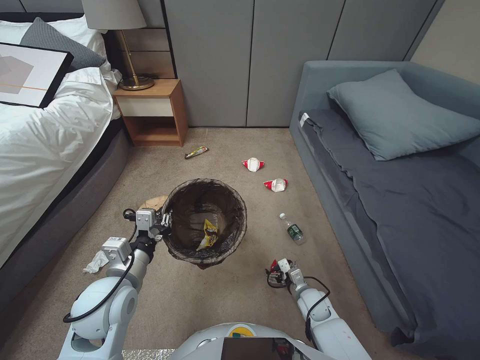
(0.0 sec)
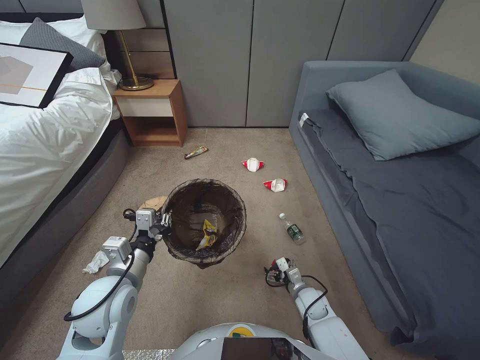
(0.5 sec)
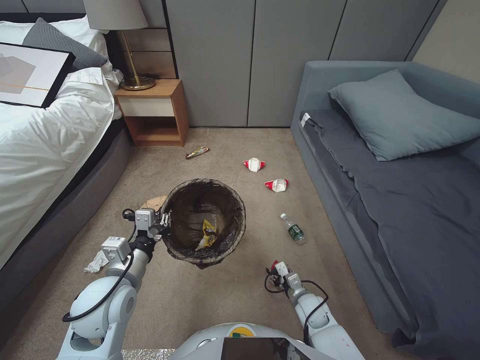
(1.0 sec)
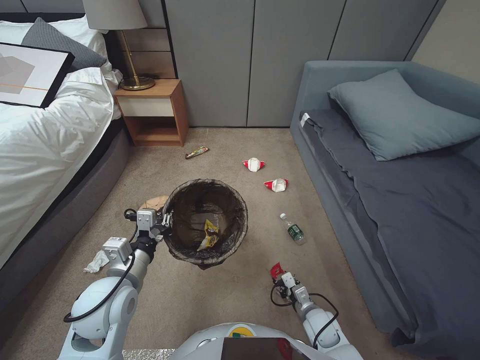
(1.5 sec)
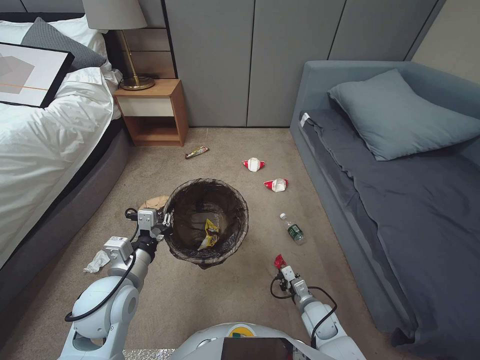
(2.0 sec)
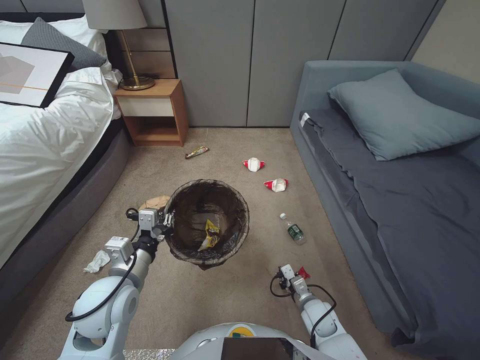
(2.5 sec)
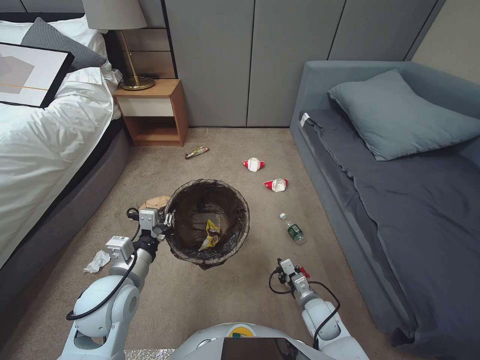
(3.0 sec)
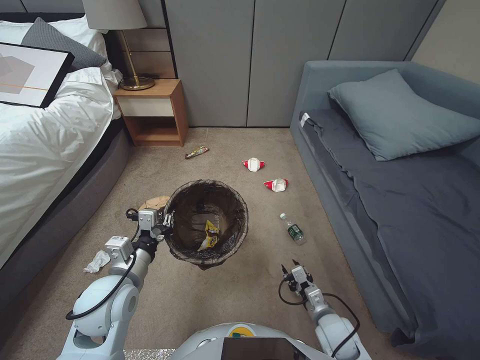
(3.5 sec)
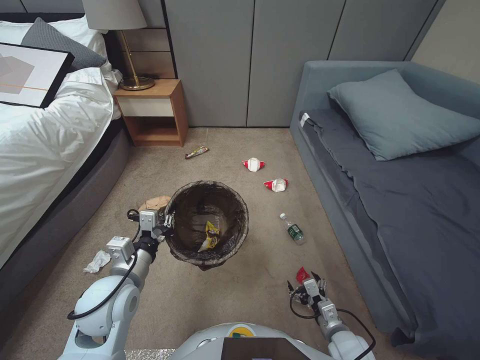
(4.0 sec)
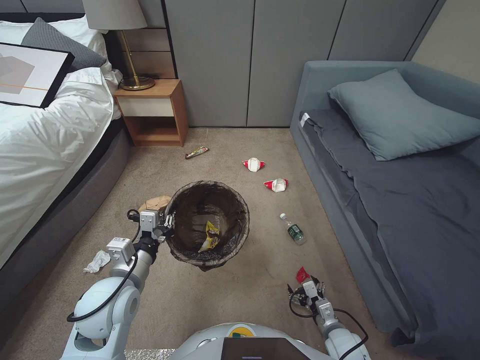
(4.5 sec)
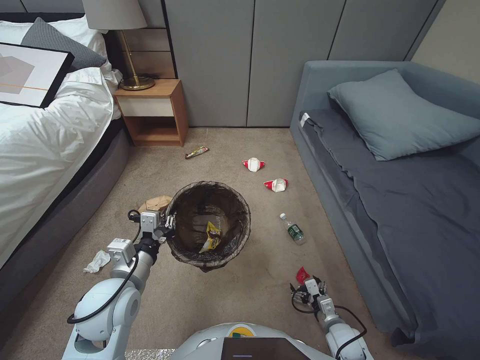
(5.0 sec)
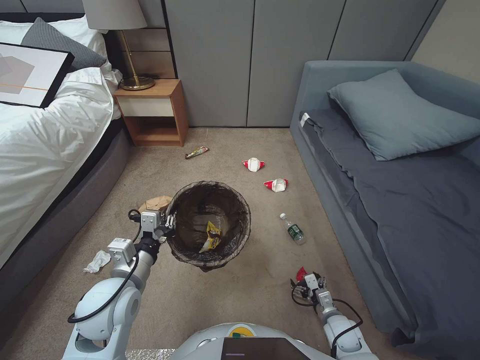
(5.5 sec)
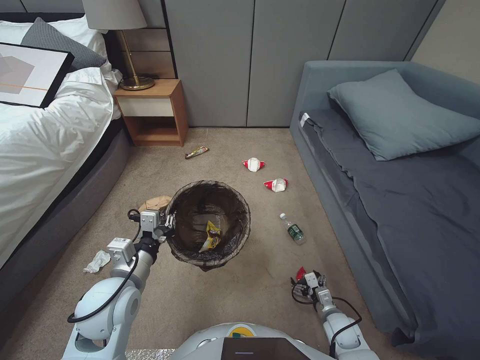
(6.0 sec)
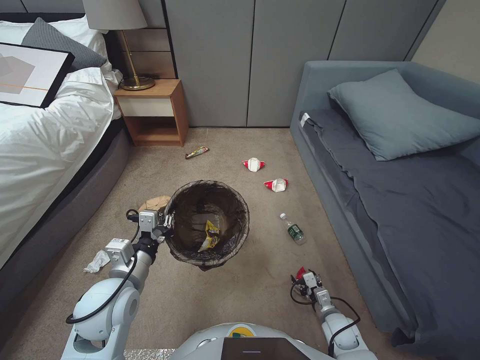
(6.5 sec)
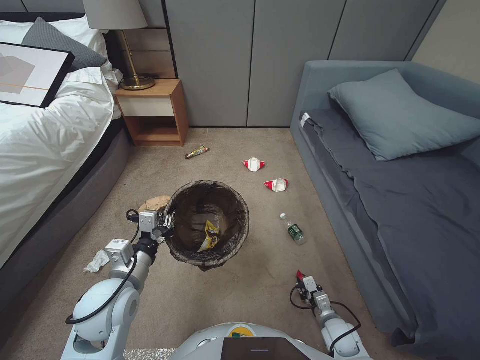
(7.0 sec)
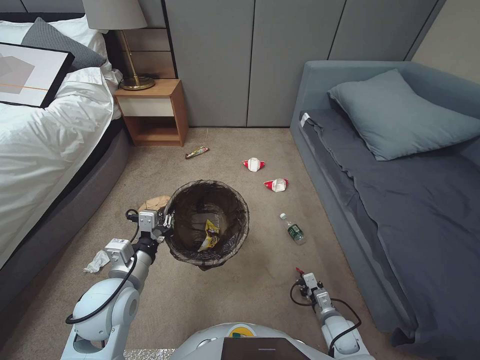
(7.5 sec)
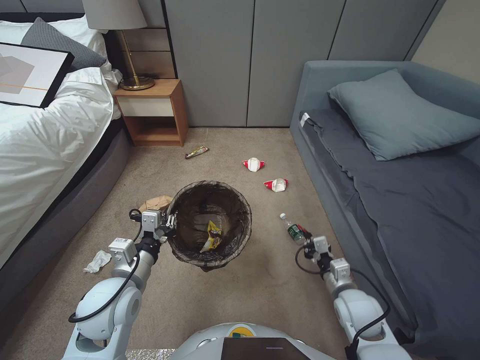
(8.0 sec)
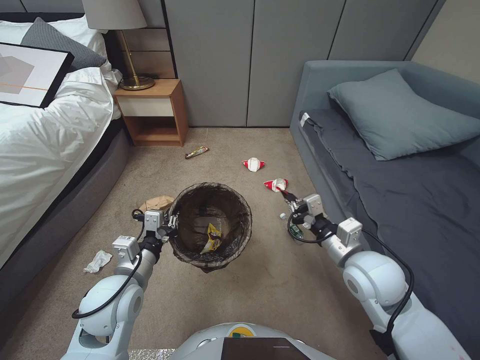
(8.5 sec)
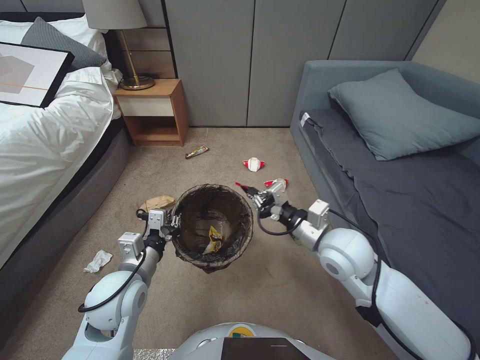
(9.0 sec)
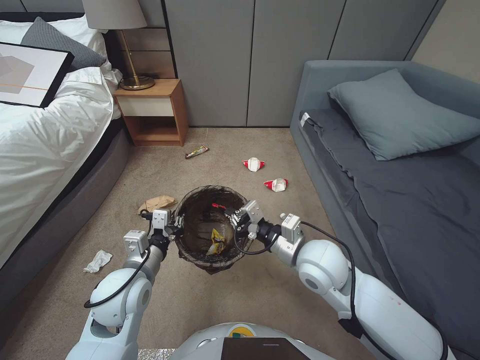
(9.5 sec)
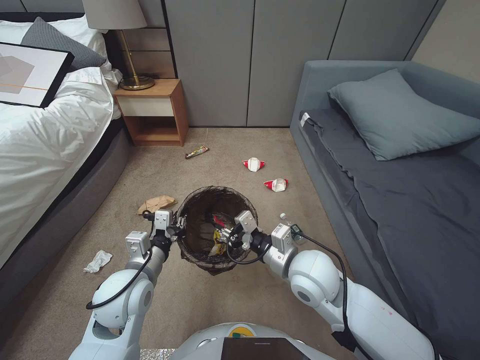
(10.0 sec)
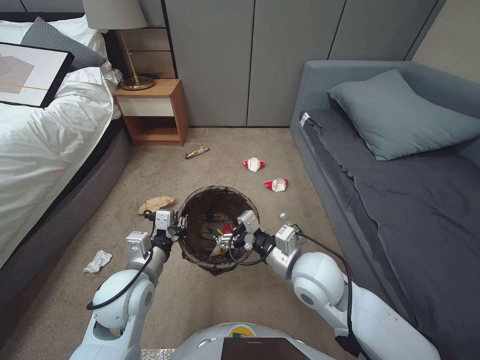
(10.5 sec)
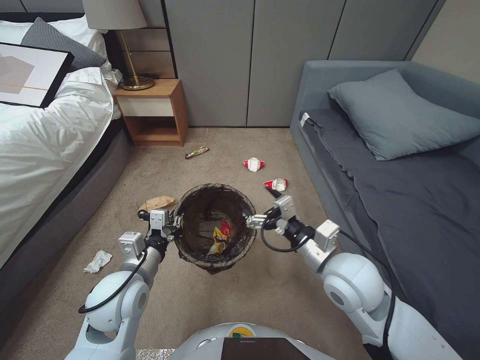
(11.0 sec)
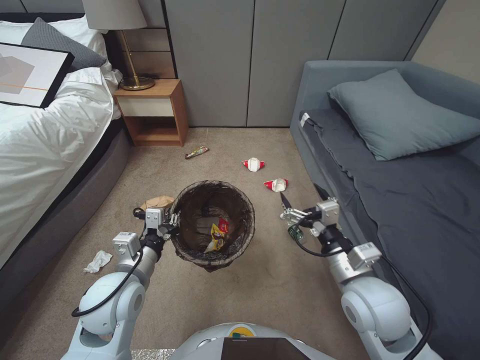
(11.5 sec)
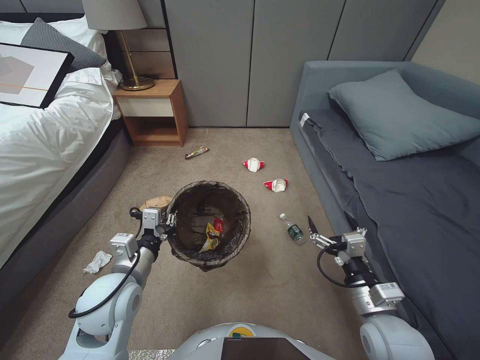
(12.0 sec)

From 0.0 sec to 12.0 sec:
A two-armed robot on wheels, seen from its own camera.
Task of the whole recording: Pick up the trash bin, then pick up the garbage from the floor and place it into the trash bin.
From 0.0 sec to 2.0 sec: The right gripper closes up.
From 2.0 sec to 4.0 sec: The right gripper shifts roughly 5 cm backward, and opens its fingers.
From 4.0 sec to 6.0 sec: The right gripper travels downward by approximately 5 cm.
From 6.0 sec to 8.0 sec: The right gripper heads upward, covering some 10 cm, and closes up.
From 8.0 sec to 10.0 sec: The right gripper moves upward and to the left, some 25 cm.
From 10.0 sec to 12.0 sec: The right gripper heads to the right and backward, covering some 15 cm, and opens.

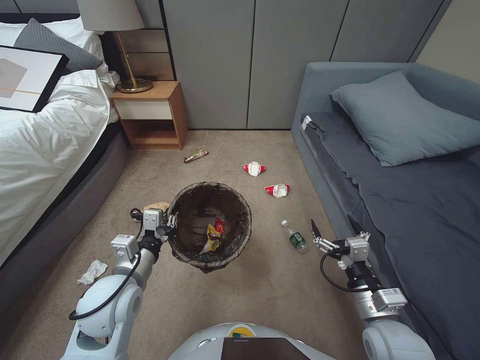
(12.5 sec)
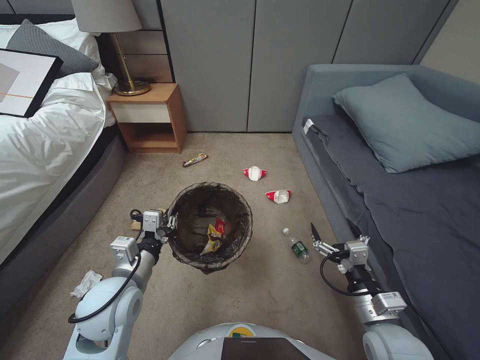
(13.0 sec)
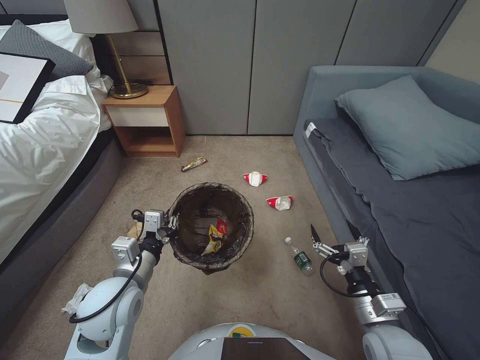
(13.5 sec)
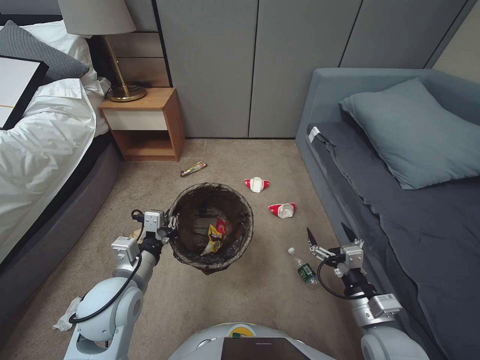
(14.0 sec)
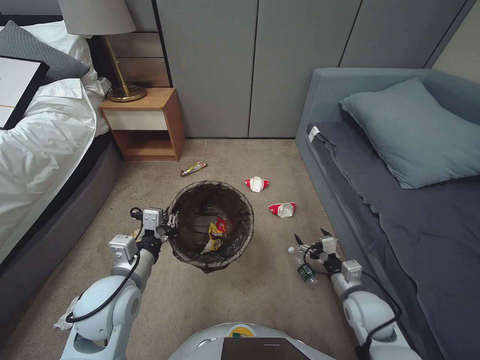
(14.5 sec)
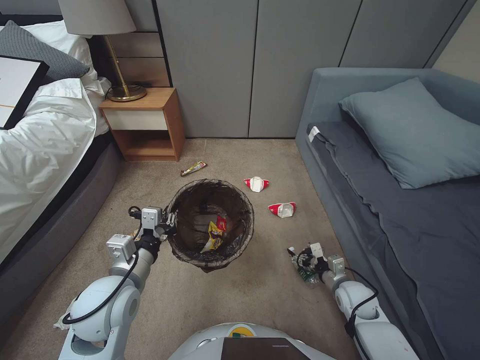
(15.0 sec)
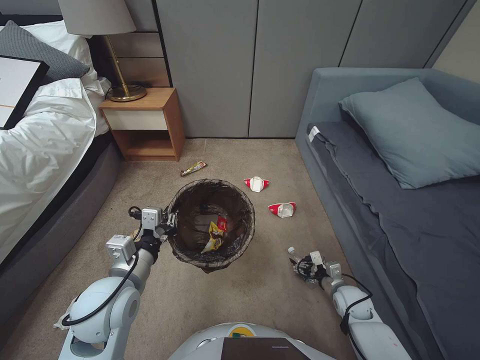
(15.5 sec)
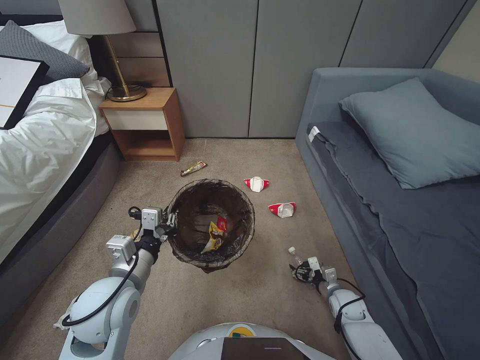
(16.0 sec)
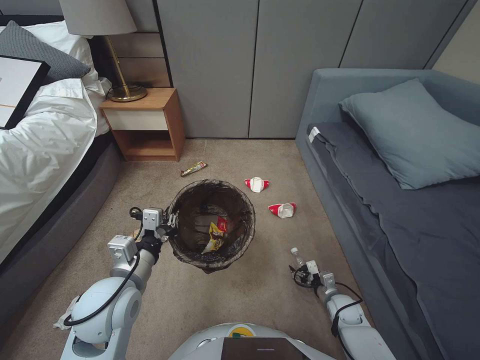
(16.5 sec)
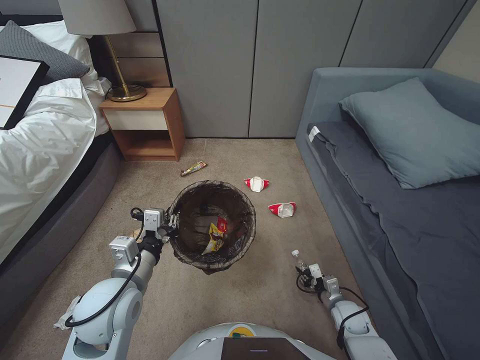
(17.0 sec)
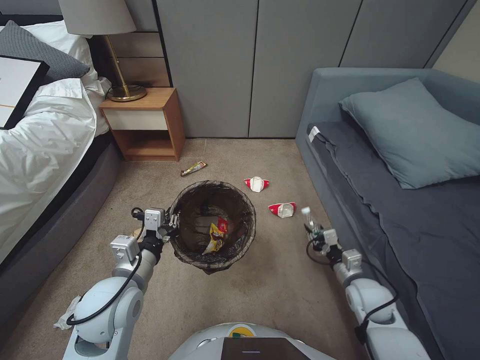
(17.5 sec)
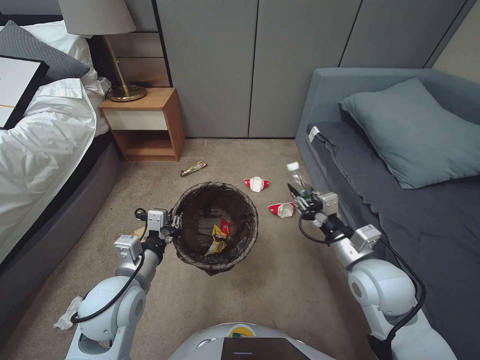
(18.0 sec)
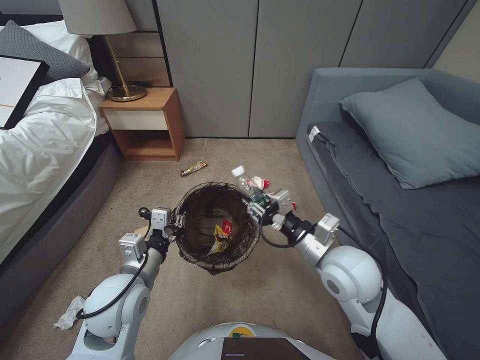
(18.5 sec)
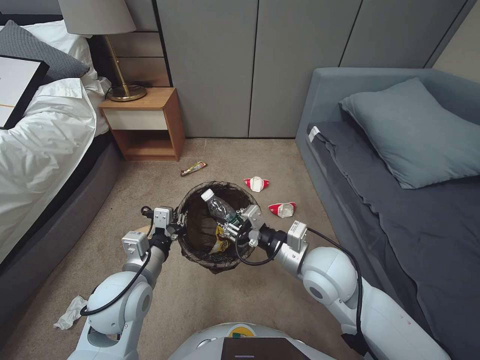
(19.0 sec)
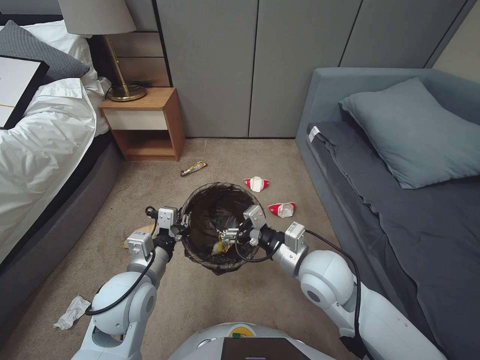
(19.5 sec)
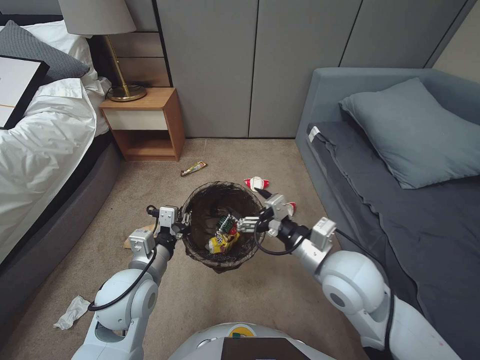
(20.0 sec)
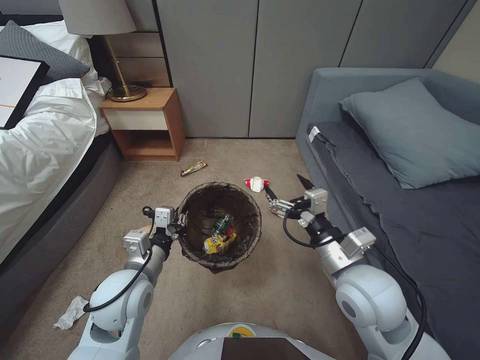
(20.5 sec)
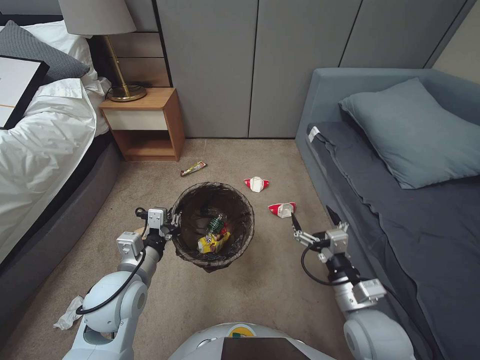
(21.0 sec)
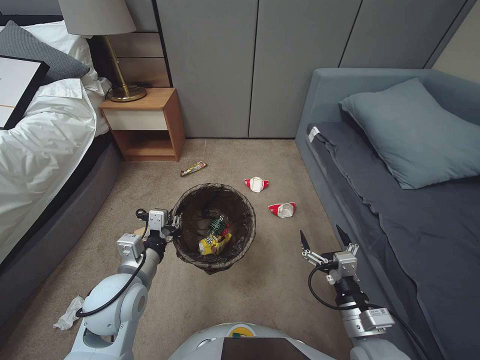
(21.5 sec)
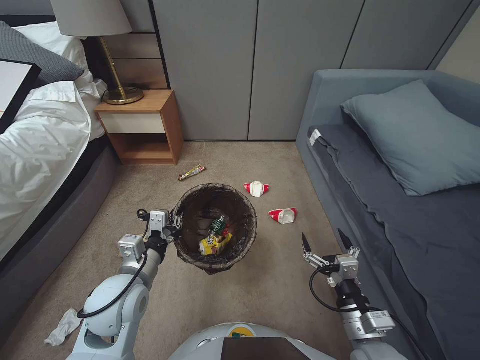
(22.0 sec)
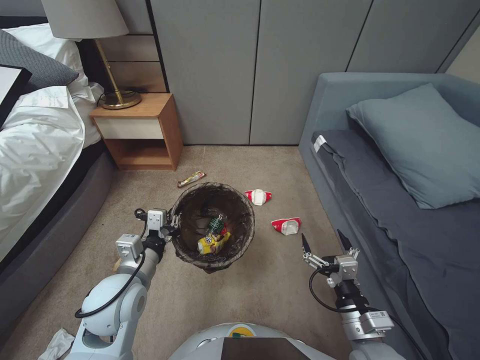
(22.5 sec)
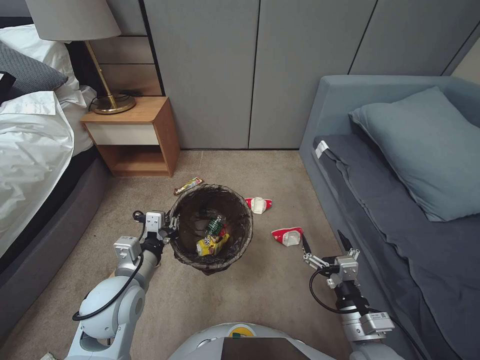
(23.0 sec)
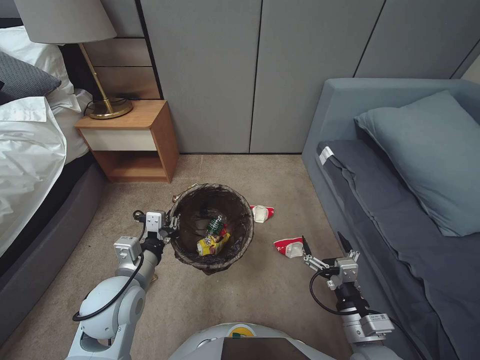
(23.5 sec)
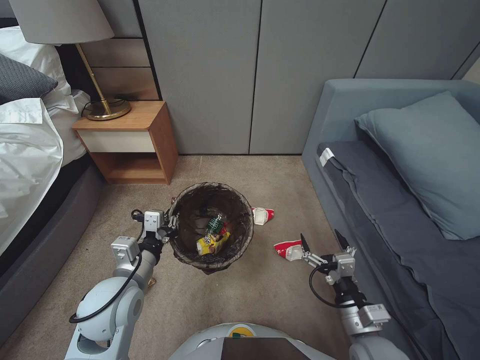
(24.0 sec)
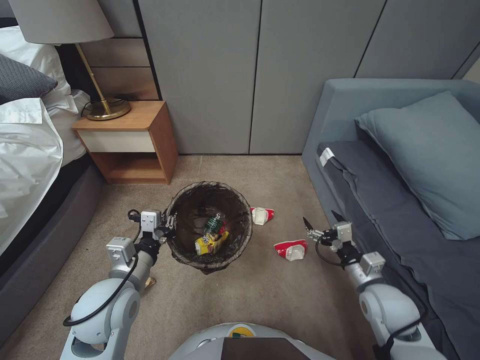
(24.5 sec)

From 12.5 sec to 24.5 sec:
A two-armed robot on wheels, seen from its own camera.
Task of the whole recording: Pick up the trash bin, then pick up the garbage from the floor and place it into the trash bin.
From 12.5 sec to 14.5 sec: The right gripper is displaced downward and forward by approximately 10 cm.
From 14.5 sec to 16.5 sec: The right gripper goes roughly 20 cm downward.
From 16.5 sec to 18.5 sec: The right gripper shifts some 35 cm upward, and closes.
From 18.5 sec to 20.5 sec: The right gripper opens up.
From 20.5 sec to 22.5 sec: The right gripper travels downward and backward by some 15 cm.
From 22.5 sec to 24.5 sec: The right gripper shifts roughly 10 cm forward and to the right.

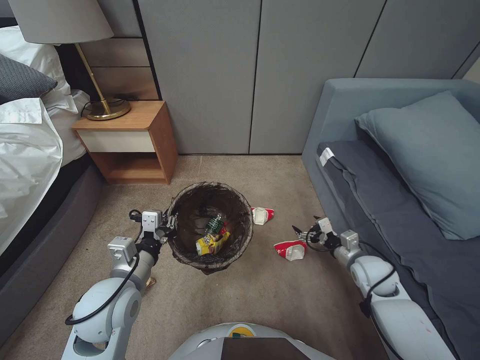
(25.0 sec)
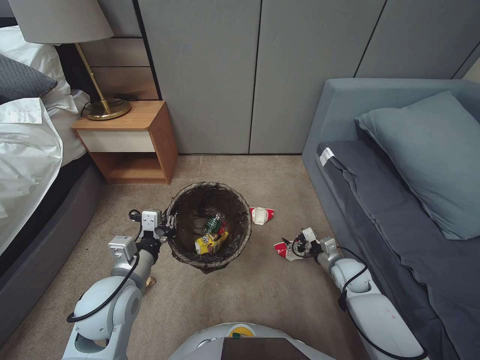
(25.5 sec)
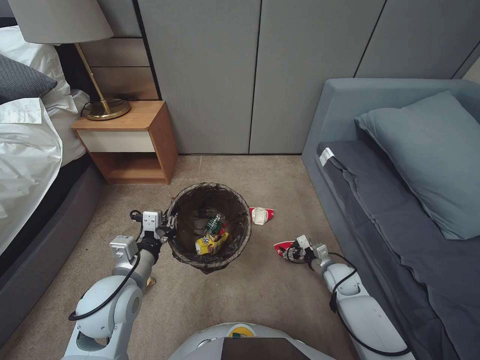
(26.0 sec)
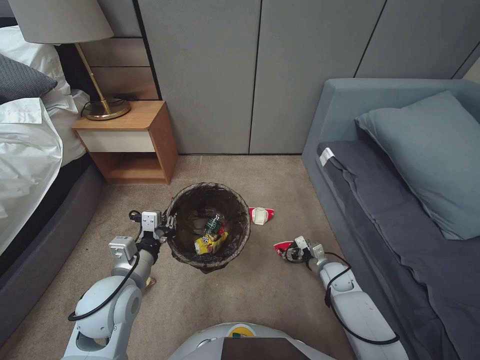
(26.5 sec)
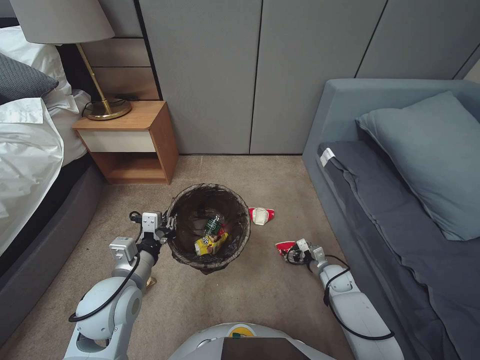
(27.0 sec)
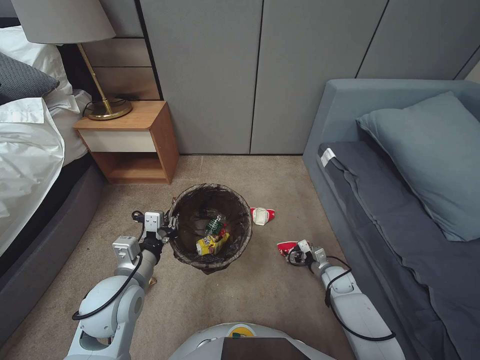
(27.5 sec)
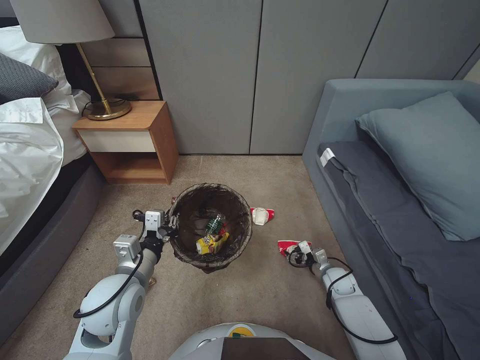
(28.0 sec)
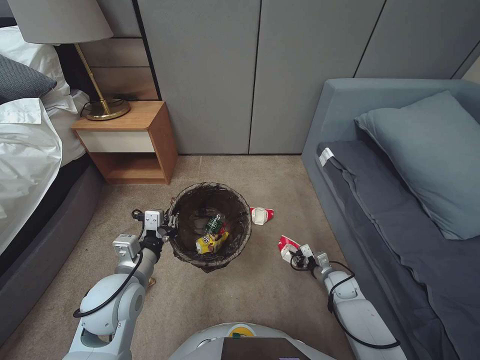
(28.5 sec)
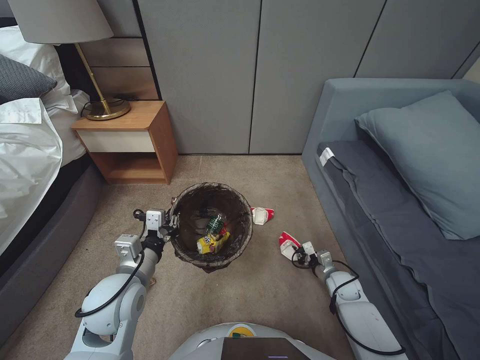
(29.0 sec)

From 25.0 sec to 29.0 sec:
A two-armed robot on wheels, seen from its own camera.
Task of the whole recording: Pick up the trash bin, then pick up the garbage from the floor and place it into the trash bin.
From 25.0 sec to 27.0 sec: The right gripper moves downward, roughly 15 cm.
From 27.0 sec to 29.0 sec: The right gripper closes its fingers.
